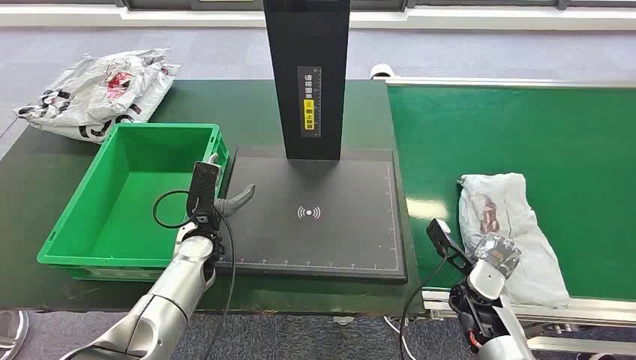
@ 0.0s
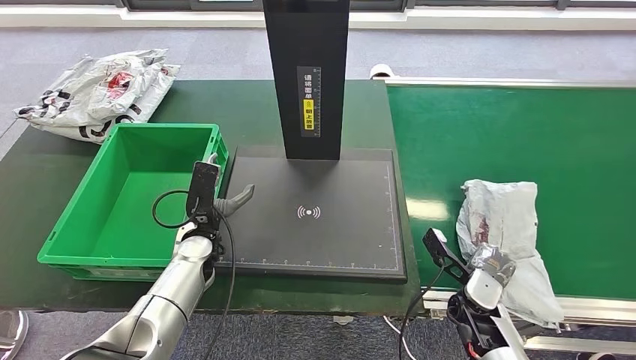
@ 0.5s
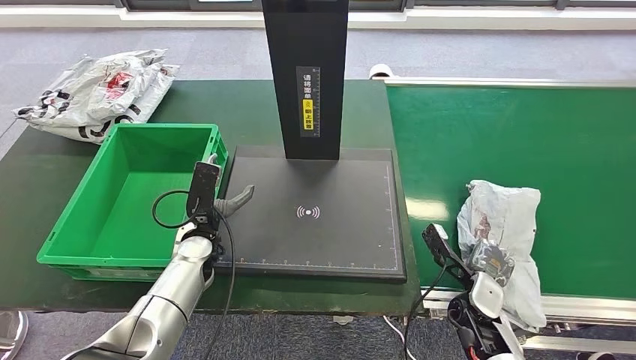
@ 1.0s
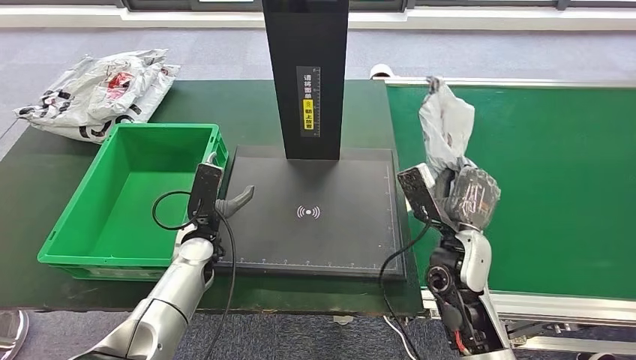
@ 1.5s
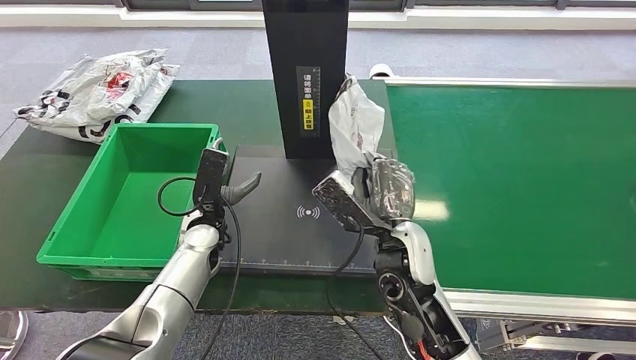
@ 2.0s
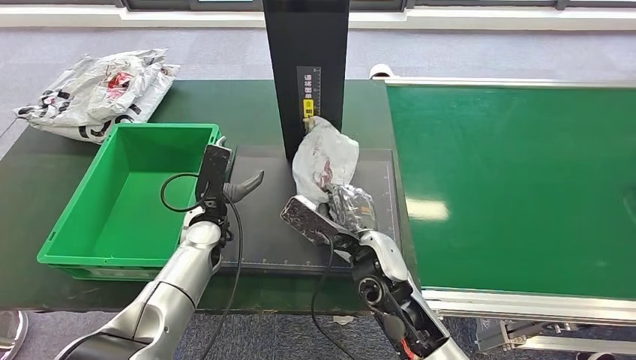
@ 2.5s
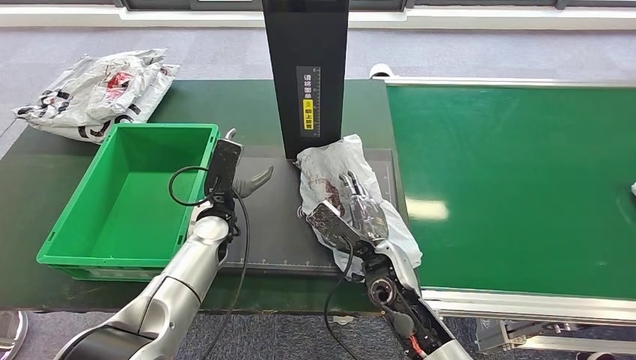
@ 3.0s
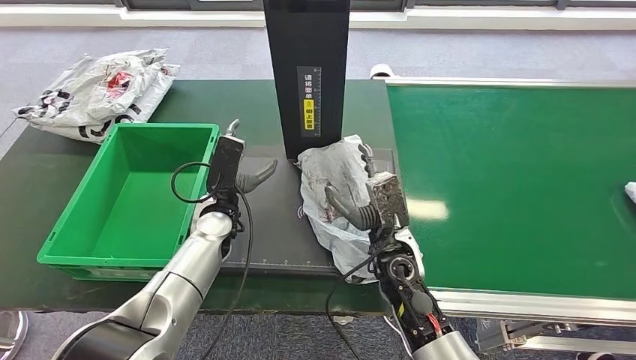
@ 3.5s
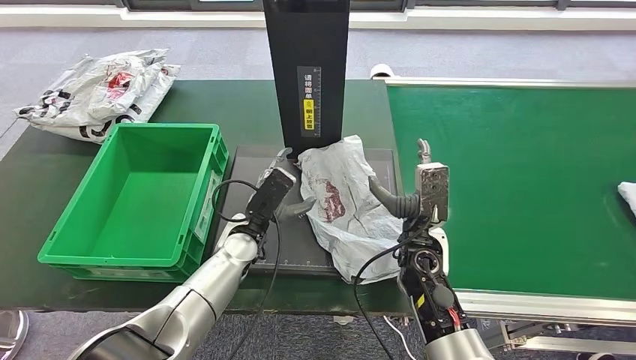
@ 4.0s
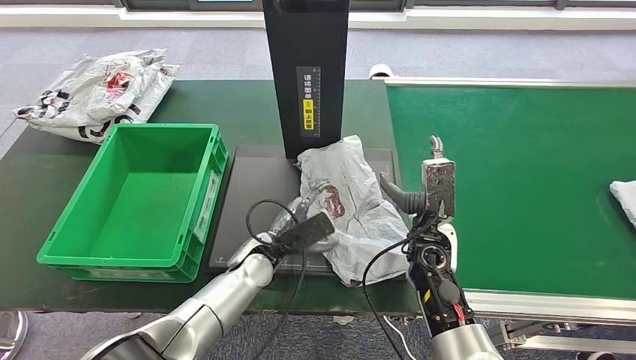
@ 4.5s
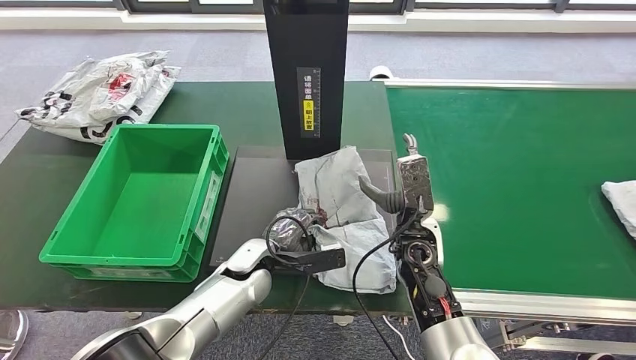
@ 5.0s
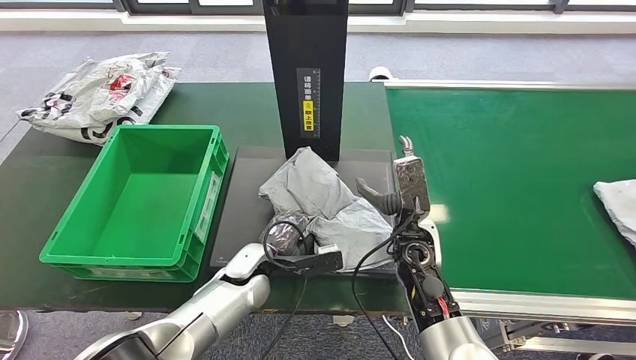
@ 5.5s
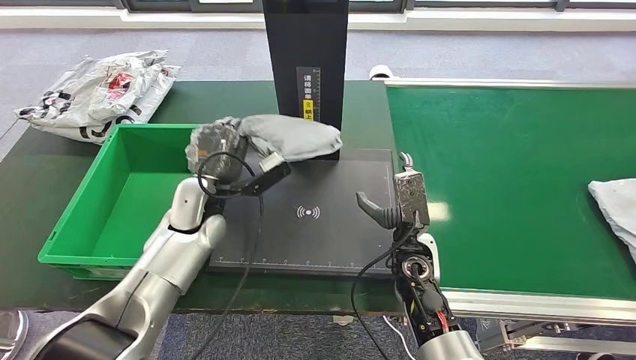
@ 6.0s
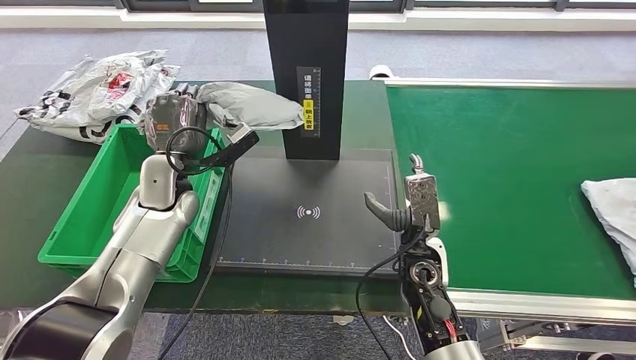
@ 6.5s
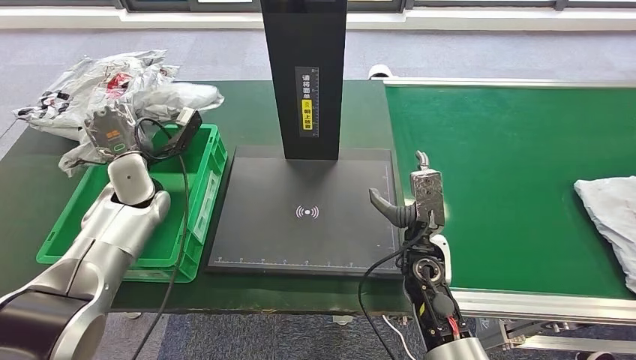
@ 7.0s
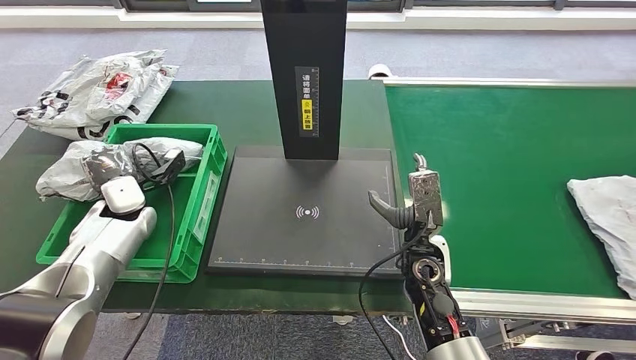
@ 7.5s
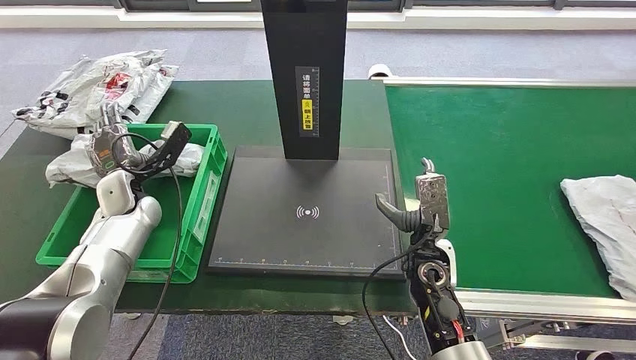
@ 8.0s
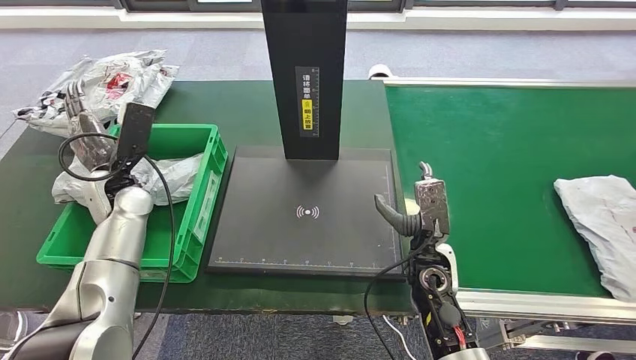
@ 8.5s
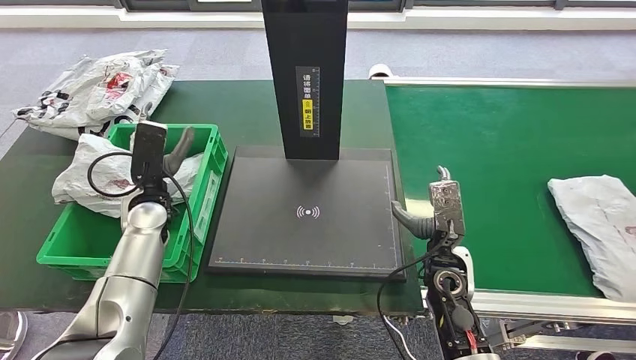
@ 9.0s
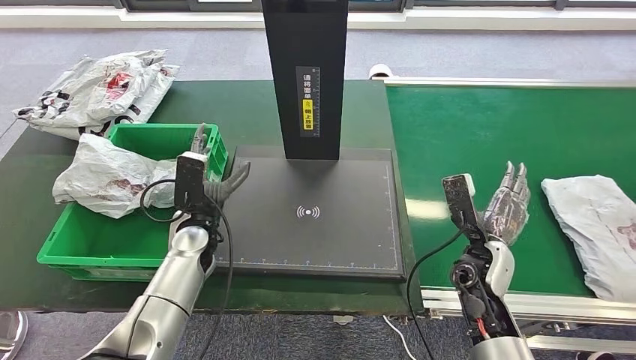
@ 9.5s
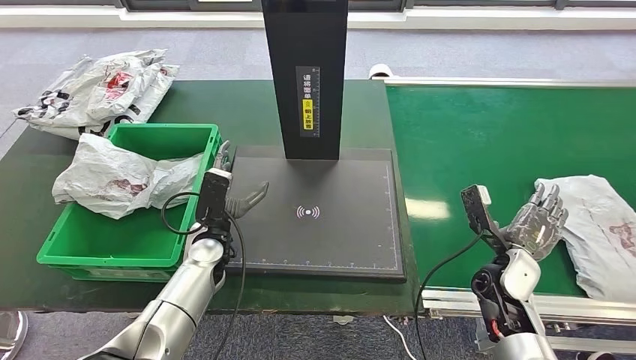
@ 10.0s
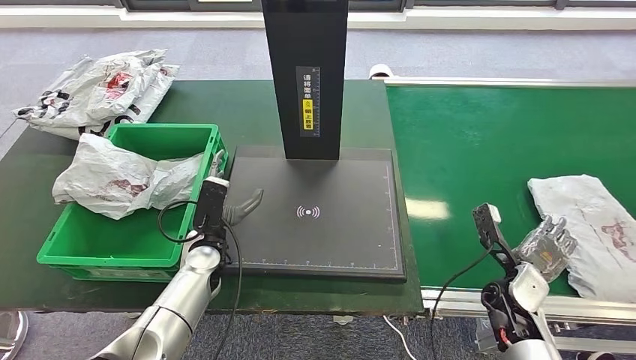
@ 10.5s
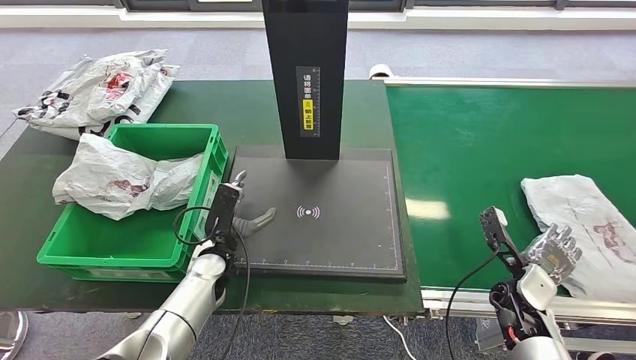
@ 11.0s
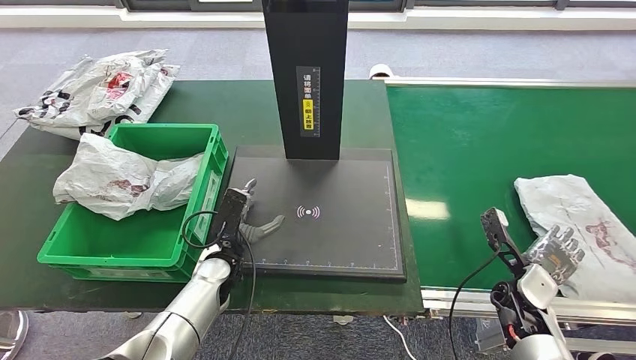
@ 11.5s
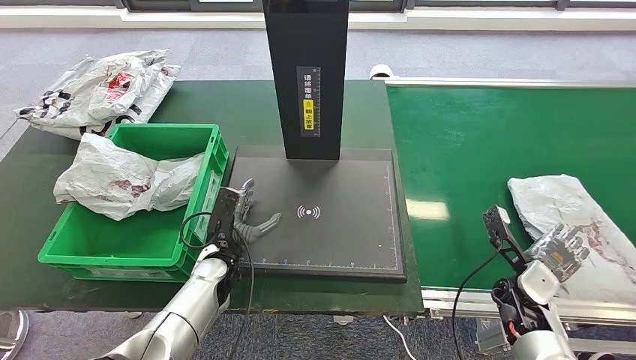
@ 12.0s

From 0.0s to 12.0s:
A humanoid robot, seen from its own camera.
Step, from 0.0s to 2.0s: Take the parcel off the conveyor belt.
Step, from 2.5s to 4.0s: Place the parcel onto the inbound machine.
Step, from 4.5s to 7.0s: Pick up the parcel from the inbound machine.
Step, from 7.5s to 9.5s: Put the parcel inside the courier box.
From 2.0s to 4.0s: The right hand moves downward and to the right, about 10 cm; the left hand heads to the right, covering approximately 5 cm.
From 10.0s to 12.0s: The right hand changes place by roughly 5 cm. The left hand ends up some 5 cm from where it was.

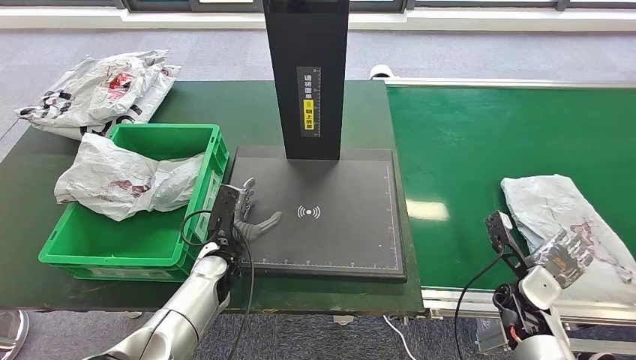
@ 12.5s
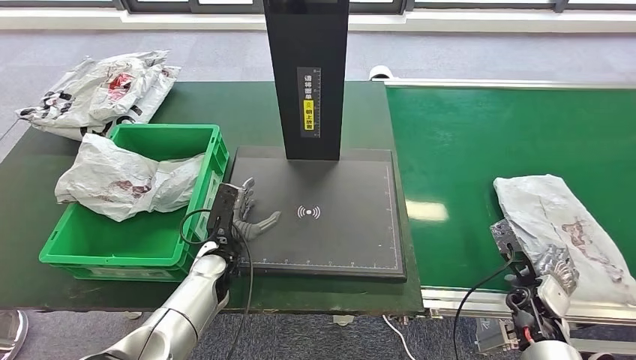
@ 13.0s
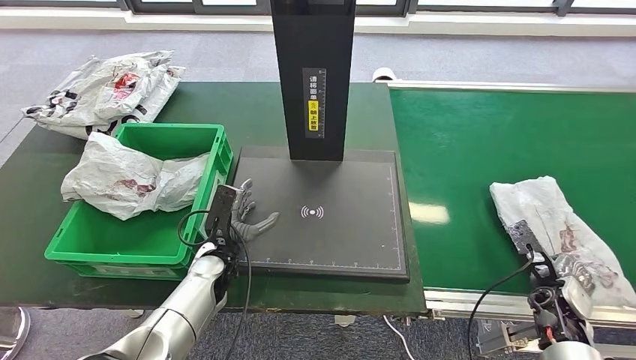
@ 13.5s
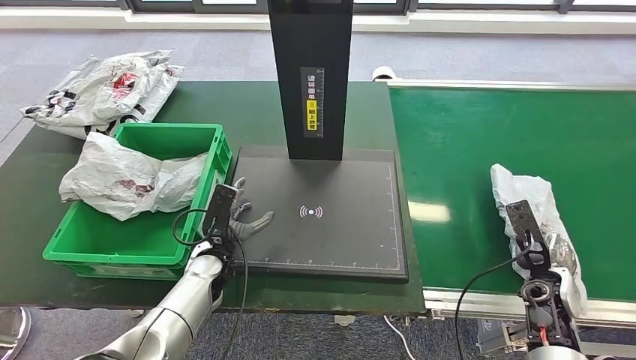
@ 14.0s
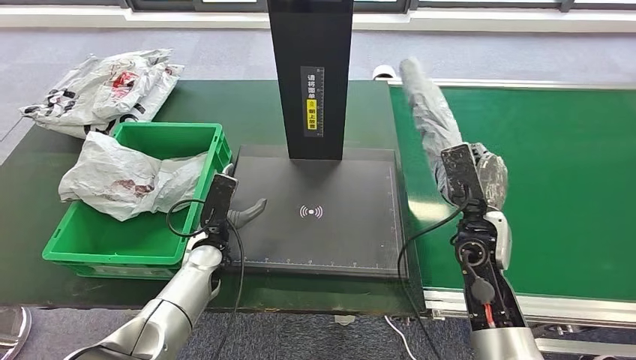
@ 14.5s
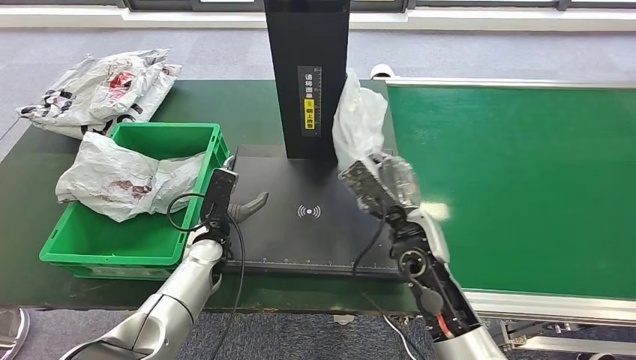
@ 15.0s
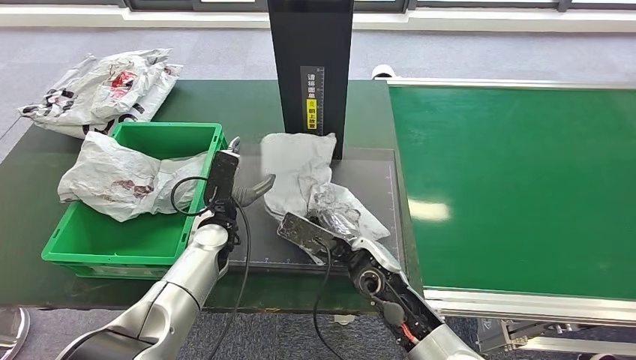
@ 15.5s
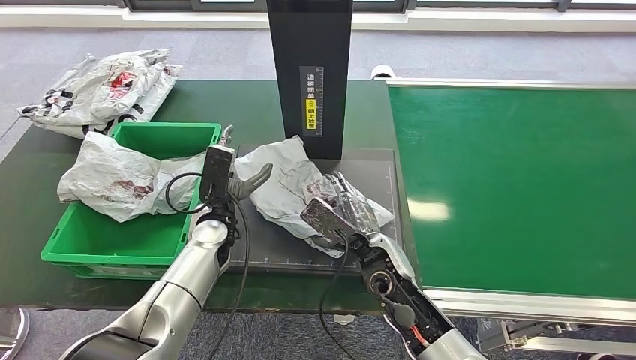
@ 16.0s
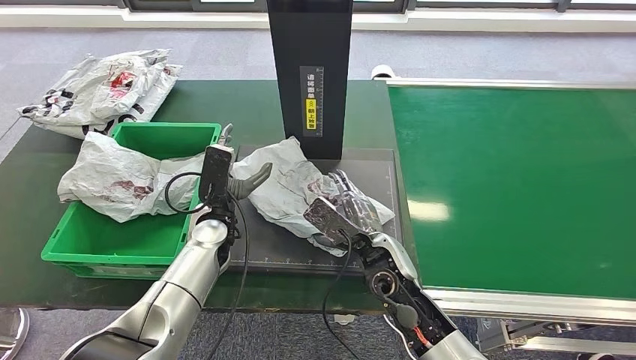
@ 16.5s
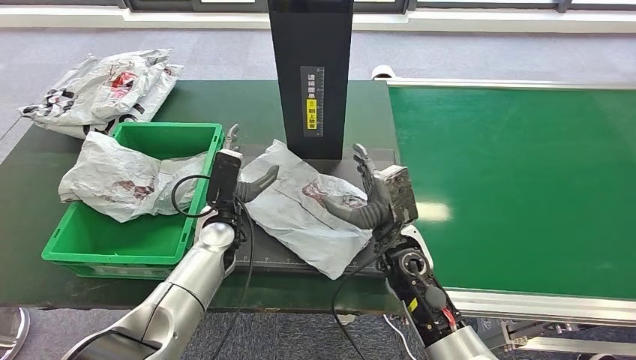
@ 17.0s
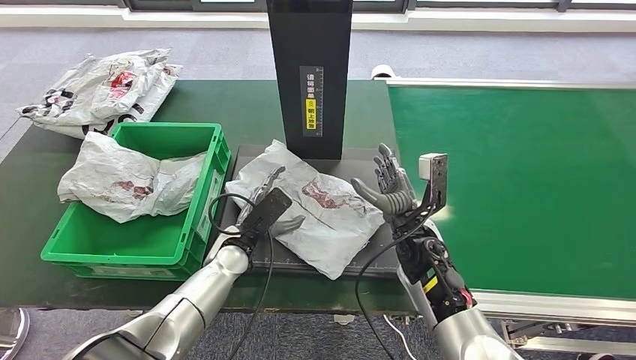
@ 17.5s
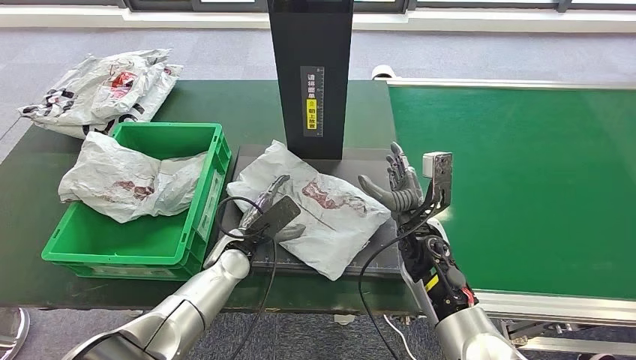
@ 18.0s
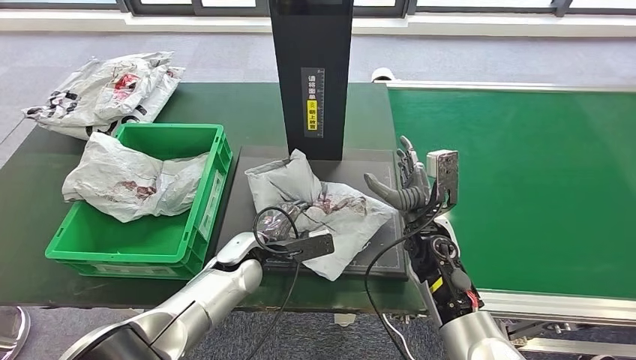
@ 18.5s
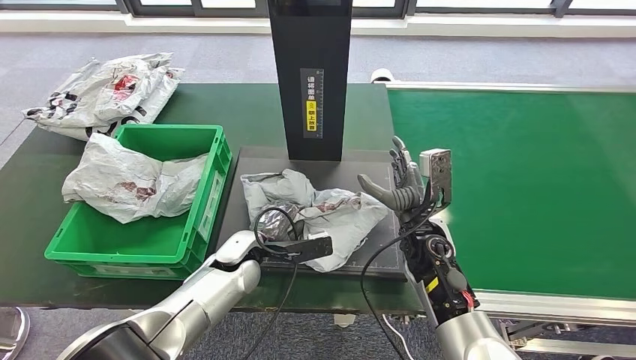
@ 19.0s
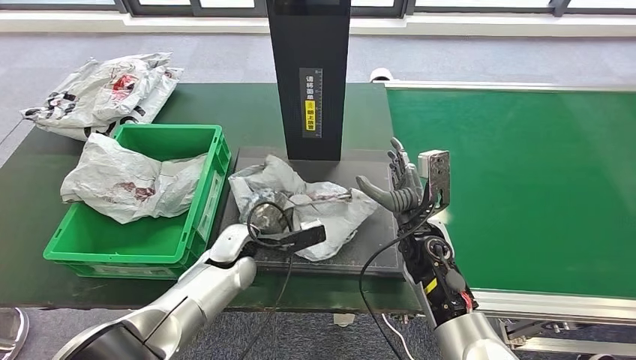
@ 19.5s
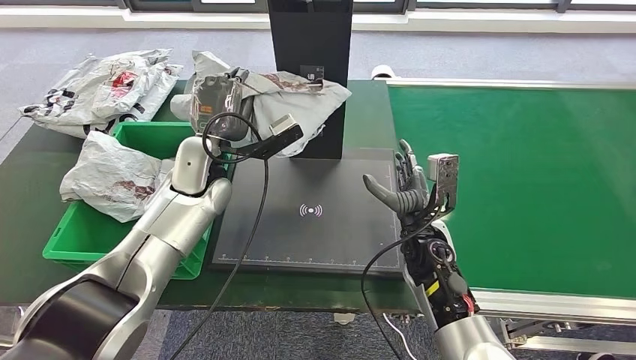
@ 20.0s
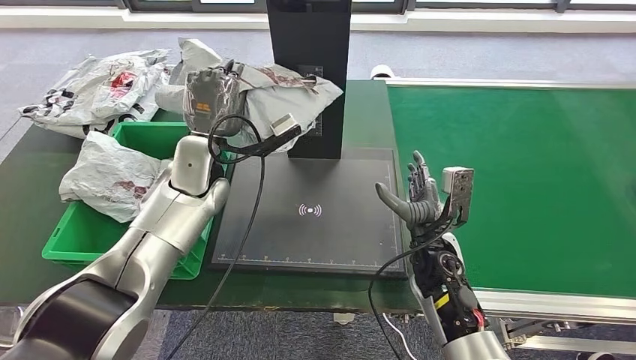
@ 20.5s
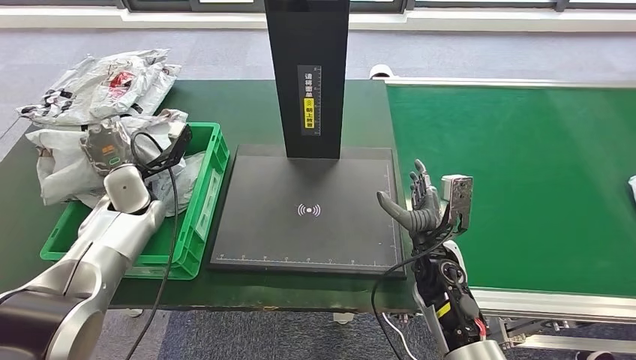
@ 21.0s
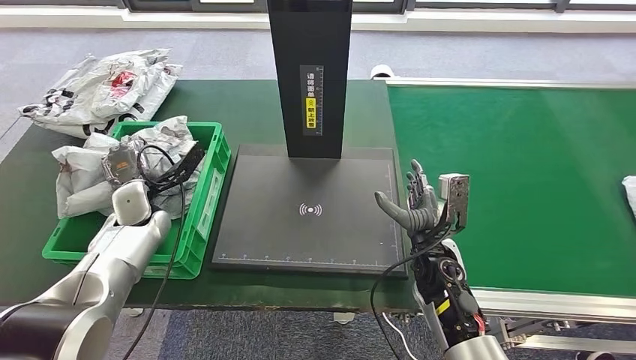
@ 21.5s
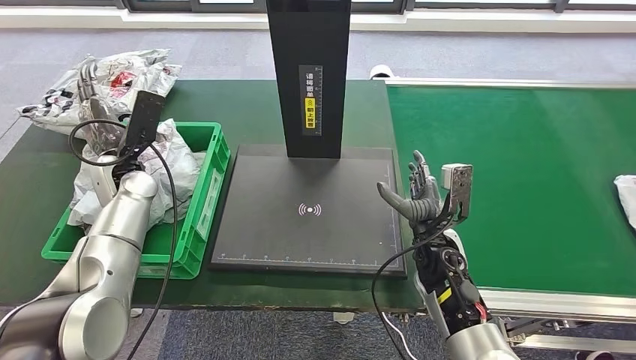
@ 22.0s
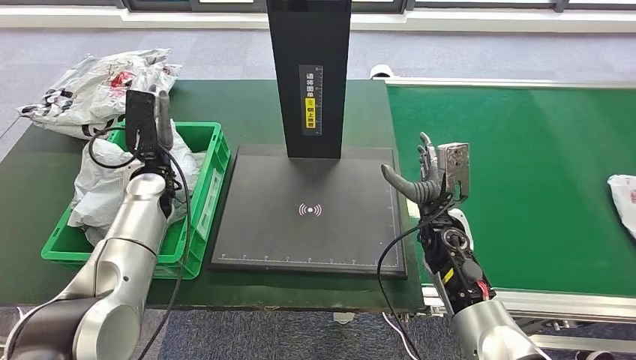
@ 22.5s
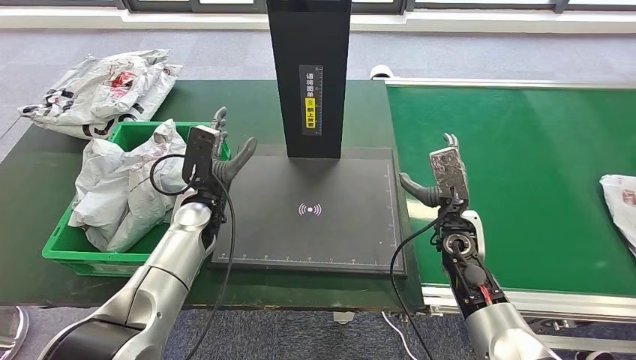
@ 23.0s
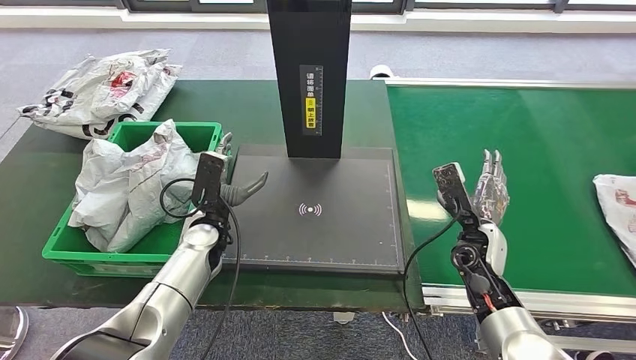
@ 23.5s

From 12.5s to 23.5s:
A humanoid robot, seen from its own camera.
Step, from 12.5s to 14.5s: Pick up the parcel from the conveyor belt.
Step, from 15.0s to 16.0s: Place the parcel onto the inbound machine.
Step, from 17.0s to 20.5s: Pick up the parcel from the inbound machine.
Step, from 21.0s to 23.5s: Place the parcel into the delivery box.
From 16.0s to 18.0s: The right hand heads to the right, covering roughly 5 cm. Meanwhile the left hand changes place by some 5 cm.
